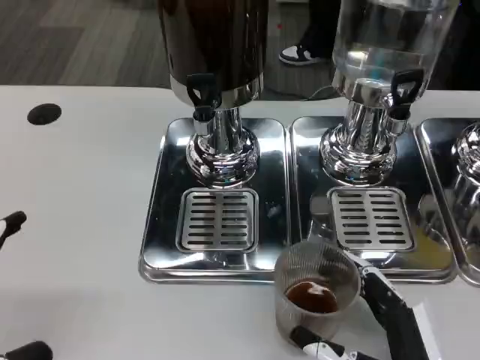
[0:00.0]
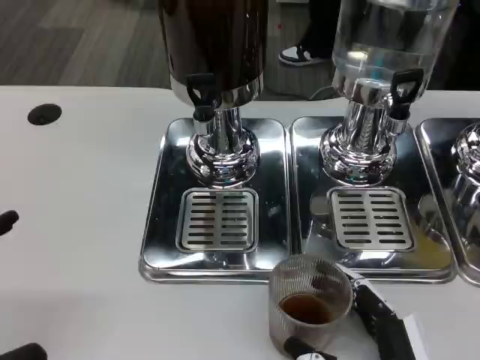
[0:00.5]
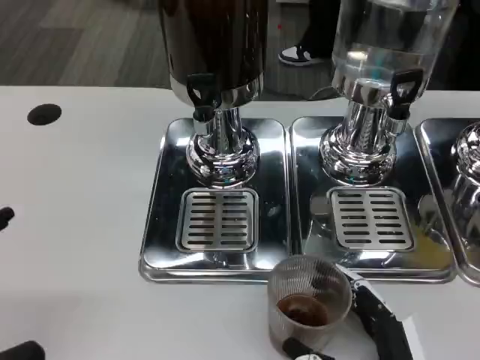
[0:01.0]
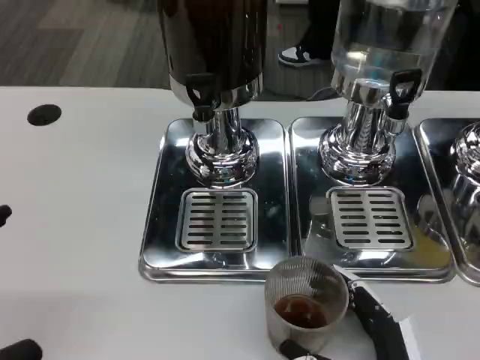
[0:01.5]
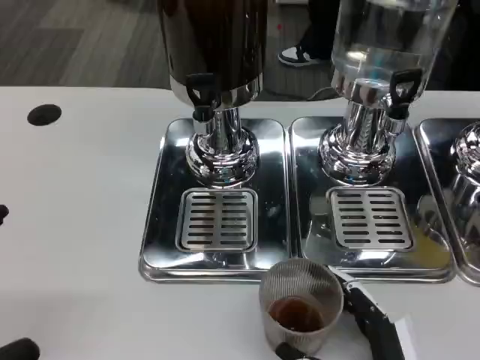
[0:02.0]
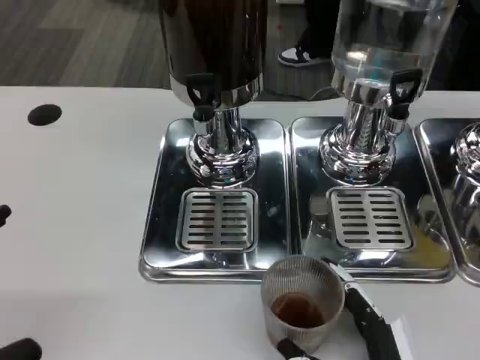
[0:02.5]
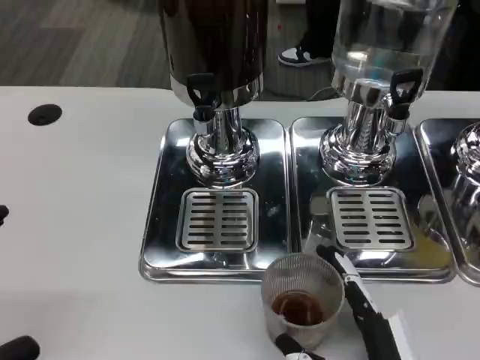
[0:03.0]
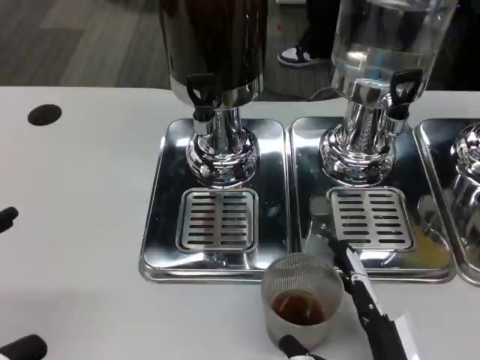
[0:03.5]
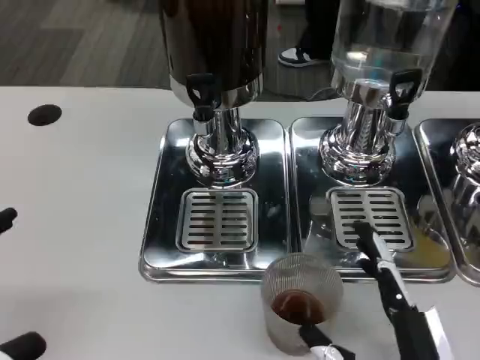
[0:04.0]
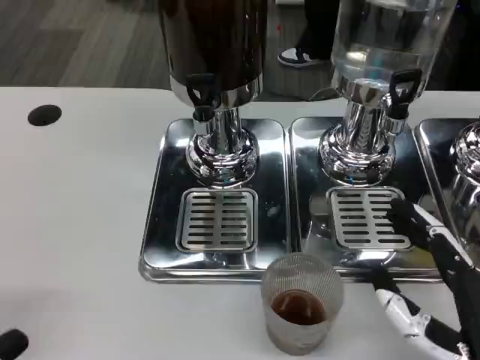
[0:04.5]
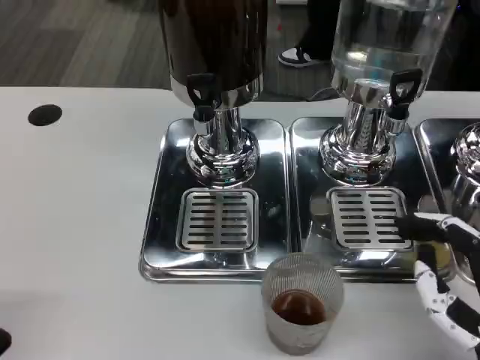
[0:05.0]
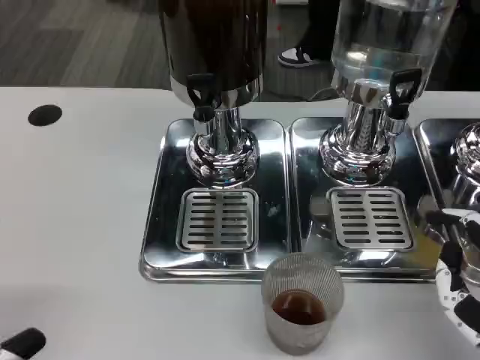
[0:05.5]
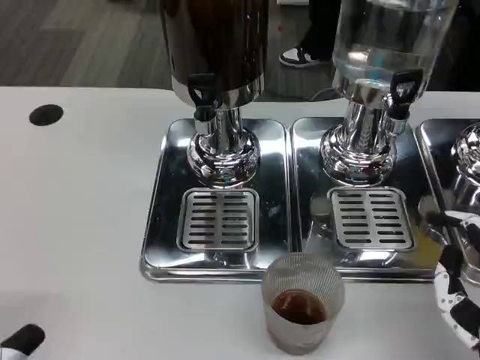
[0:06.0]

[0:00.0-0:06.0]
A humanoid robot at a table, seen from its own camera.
Task of the whole recording: Grasp the cup under the faucet to collect the drink, then remove the cup.
0:00.0 to 0:04.0: The hands make only small movements.
0:04.0 to 0:06.0: The right hand goes about 5 cm upward.

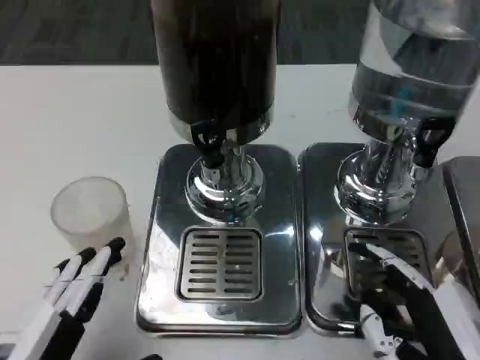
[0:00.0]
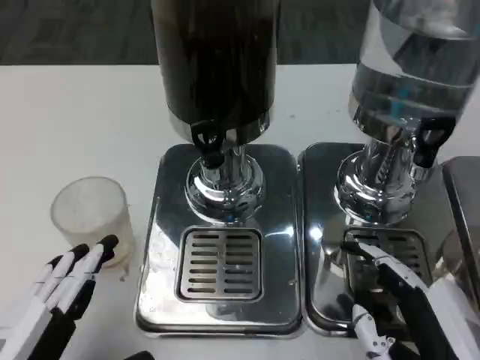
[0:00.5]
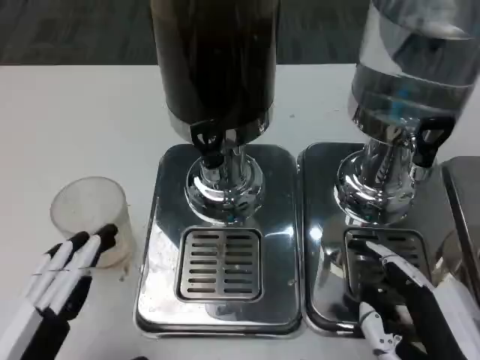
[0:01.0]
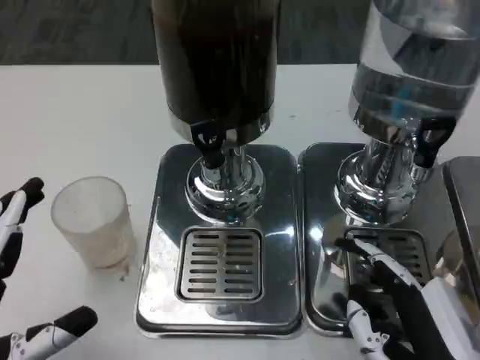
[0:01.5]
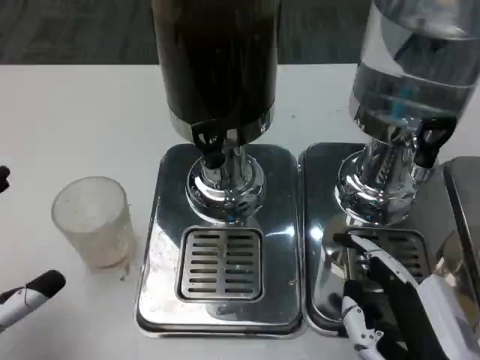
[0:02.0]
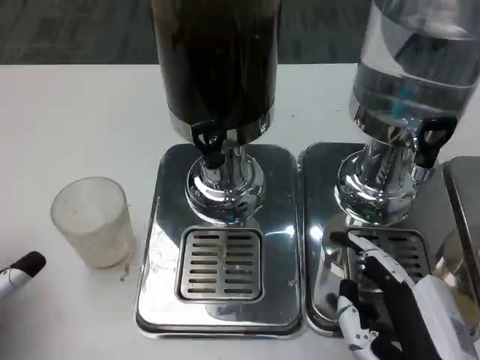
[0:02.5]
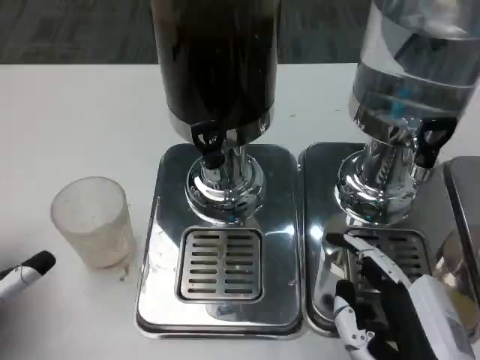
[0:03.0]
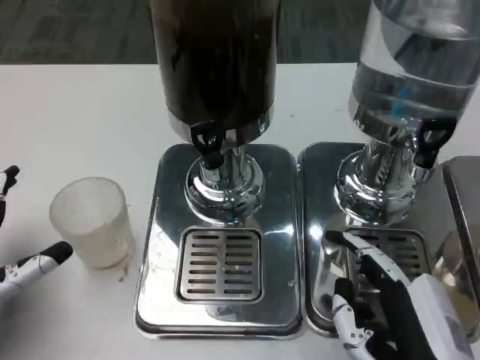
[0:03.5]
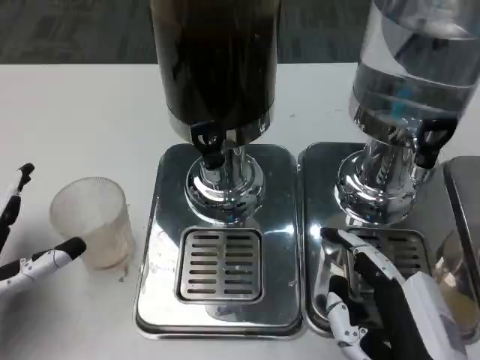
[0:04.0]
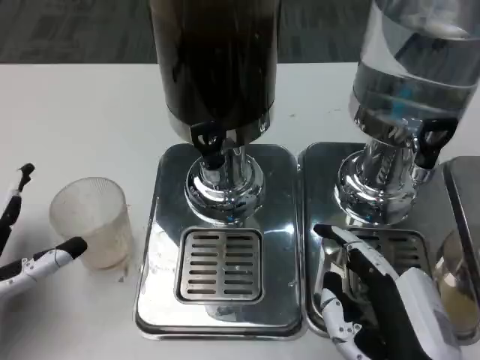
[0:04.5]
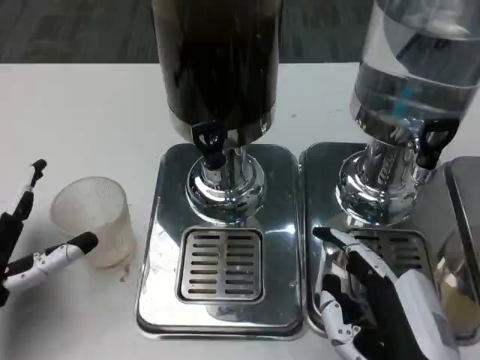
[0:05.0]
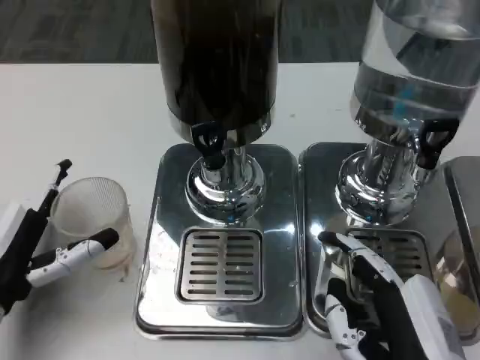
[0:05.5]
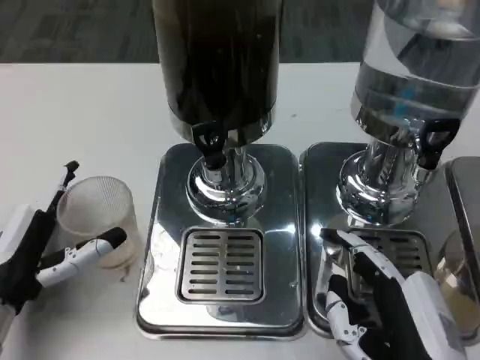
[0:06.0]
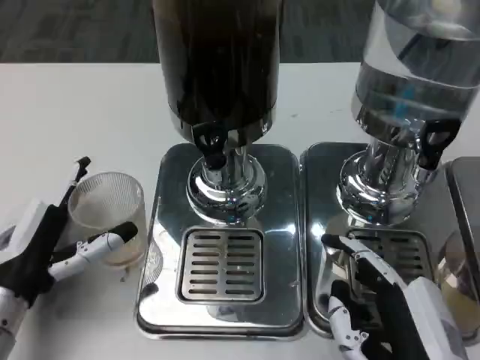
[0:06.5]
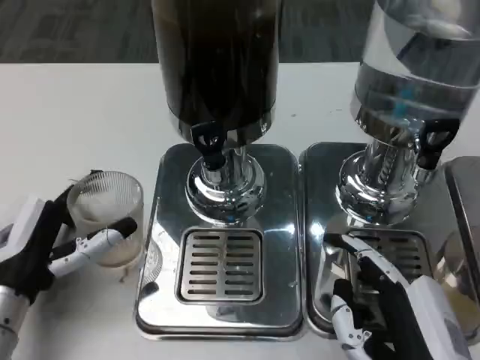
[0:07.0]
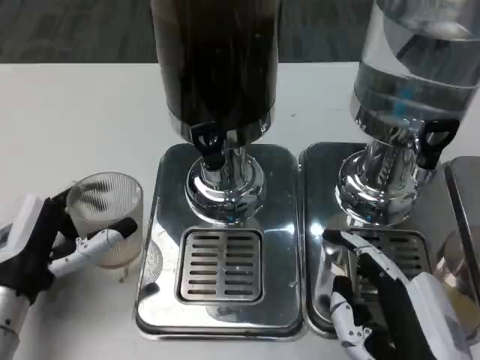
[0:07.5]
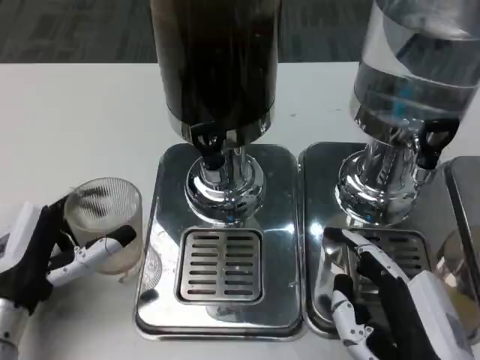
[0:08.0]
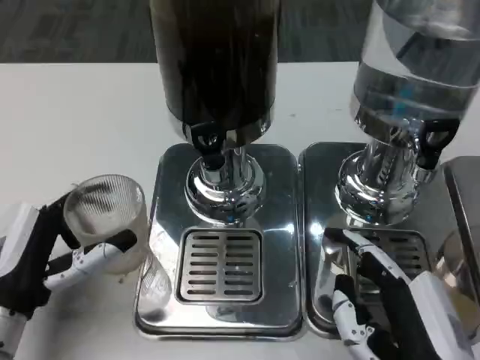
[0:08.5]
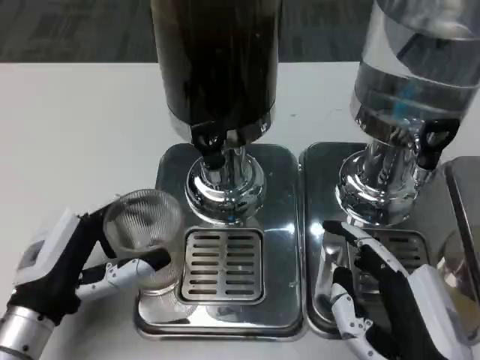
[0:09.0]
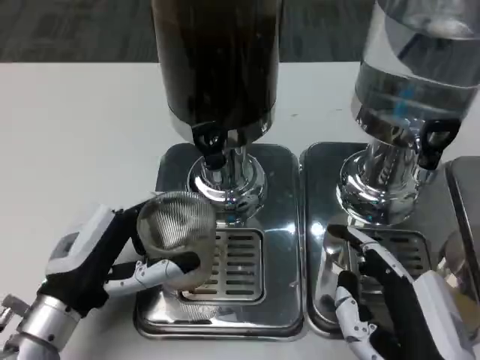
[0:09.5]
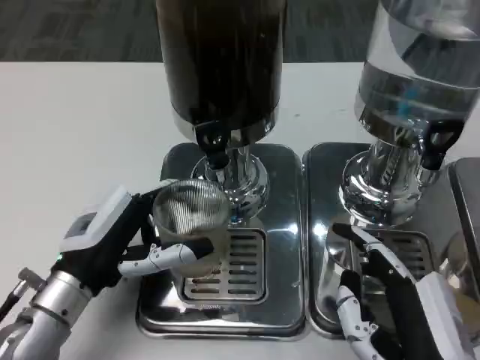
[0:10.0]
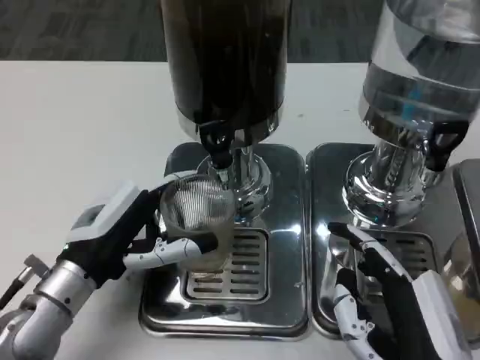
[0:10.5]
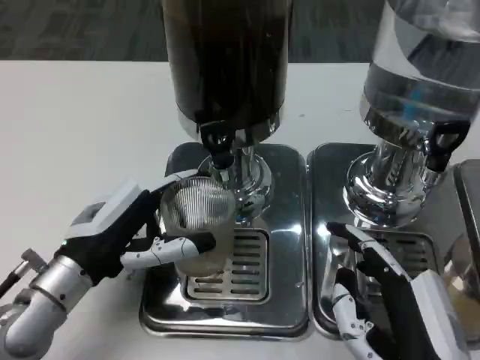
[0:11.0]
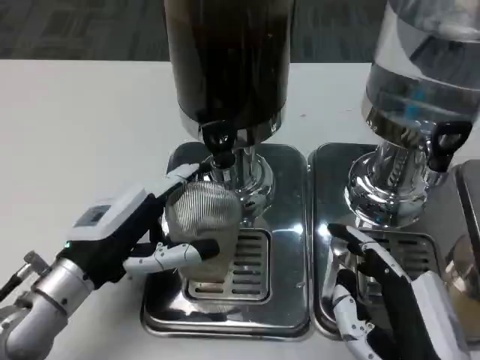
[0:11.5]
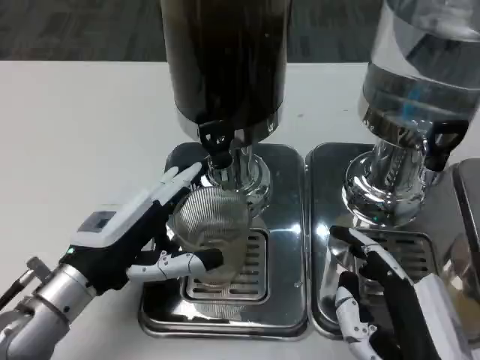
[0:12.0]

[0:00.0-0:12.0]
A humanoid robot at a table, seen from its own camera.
Task of the whole recording: Grasp the cup under the faucet to collect the drink, then remove the cup.
0:00.0 to 0:02.0: The left hand travels to the left by some 5 cm.
0:02.0 to 0:04.0: The left hand travels forward by some 5 cm.
0:04.0 to 0:08.0: The hands move only a little.
0:08.0 to 0:10.0: The left hand shifts by roughly 5 cm.

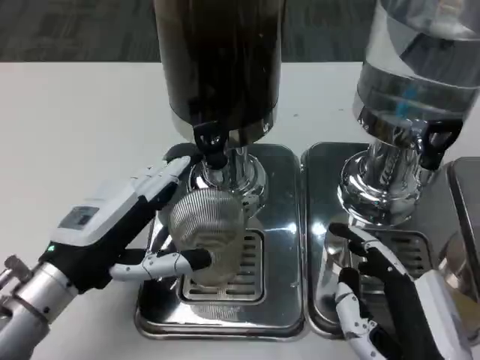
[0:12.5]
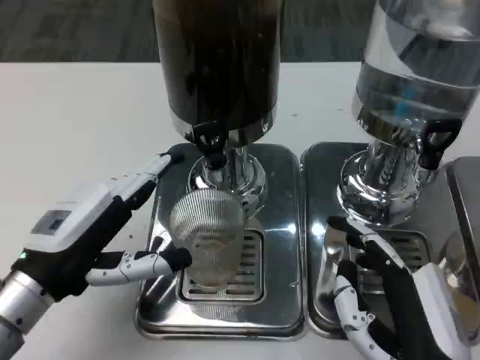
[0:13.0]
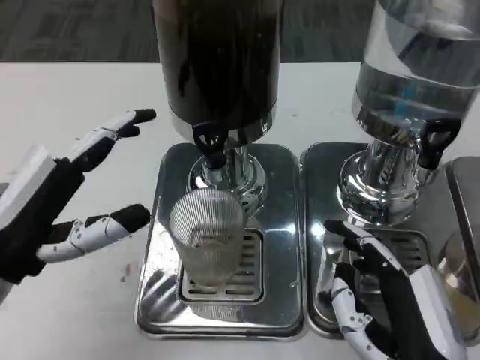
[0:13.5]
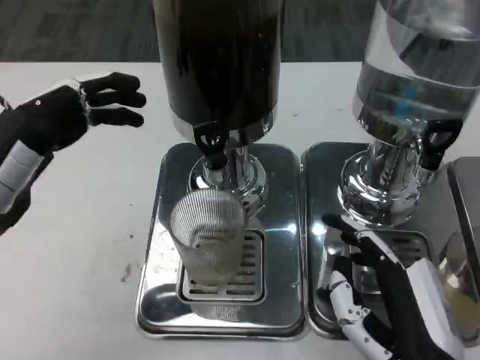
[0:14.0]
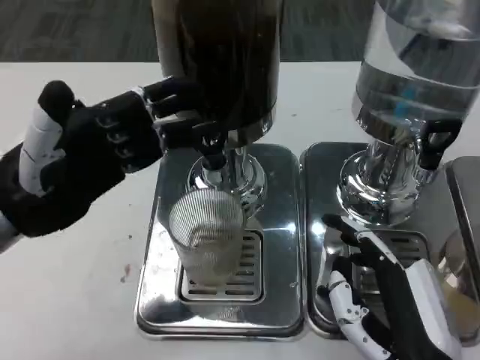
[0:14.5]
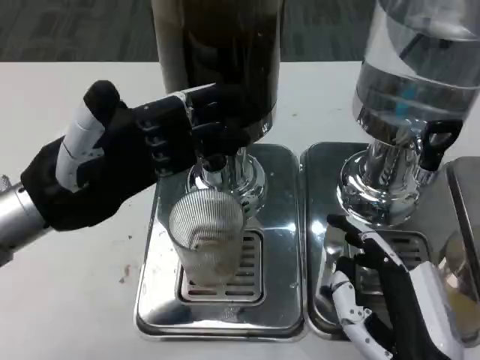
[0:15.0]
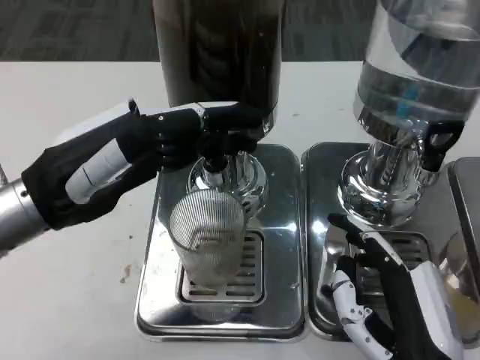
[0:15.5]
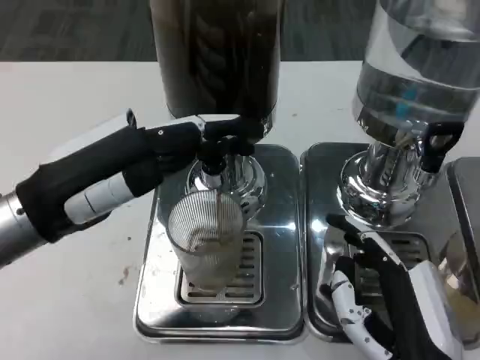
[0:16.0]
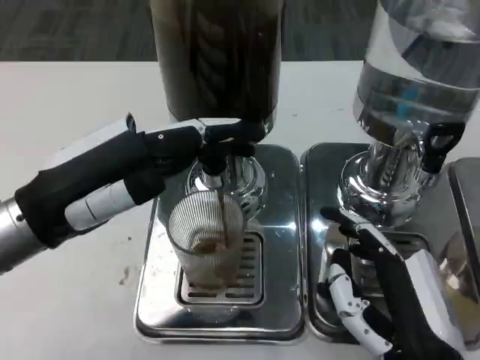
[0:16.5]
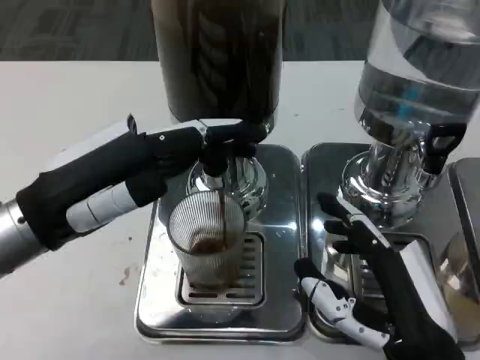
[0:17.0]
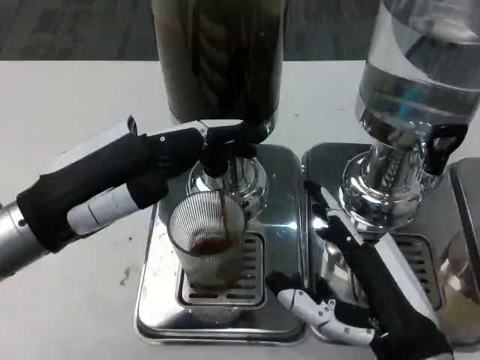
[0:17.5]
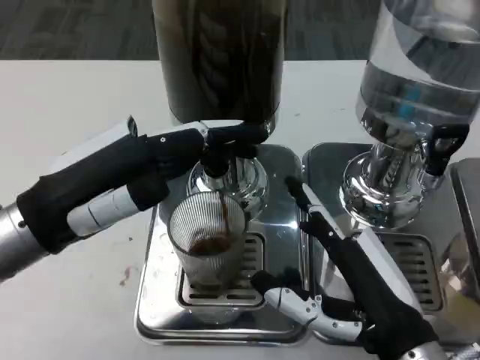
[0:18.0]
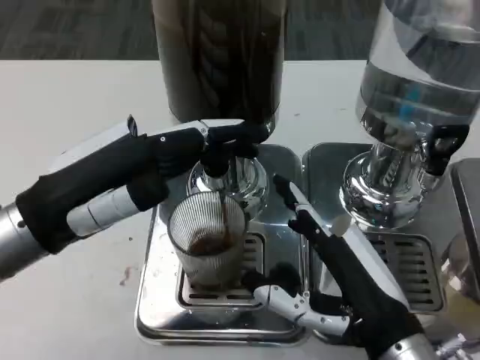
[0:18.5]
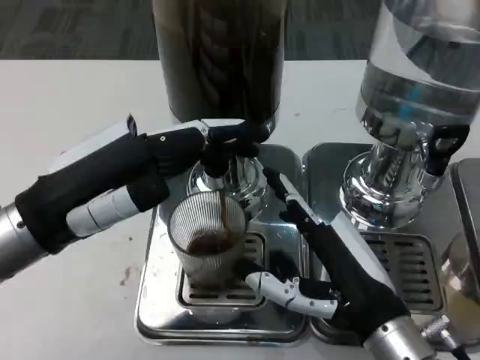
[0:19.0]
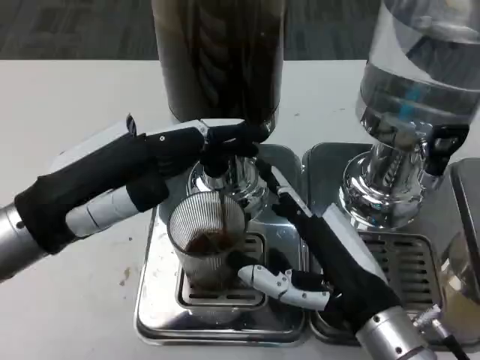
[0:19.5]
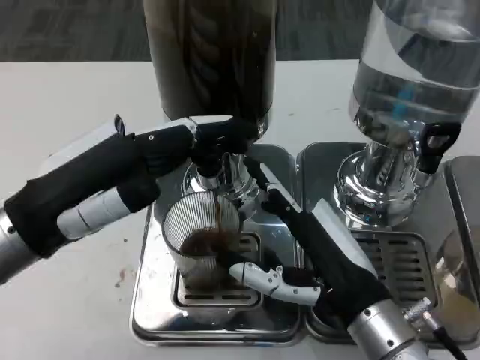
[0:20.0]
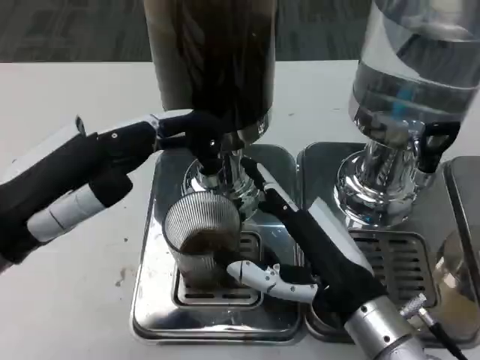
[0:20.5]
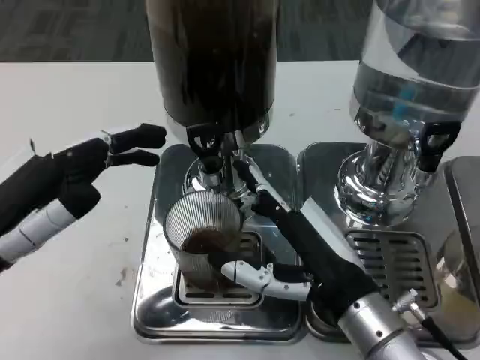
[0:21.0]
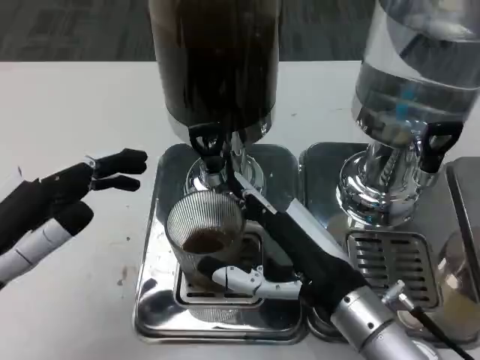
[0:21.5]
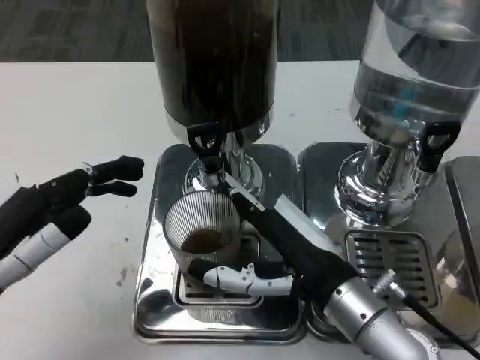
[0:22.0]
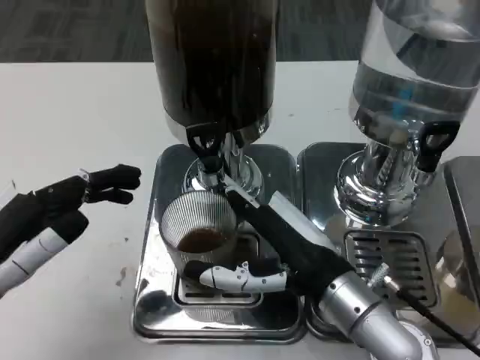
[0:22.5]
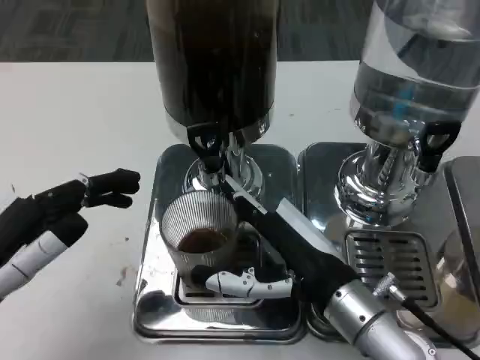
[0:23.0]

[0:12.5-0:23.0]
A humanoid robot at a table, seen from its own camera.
Task of the whole recording: Grasp the cup under the faucet to collect the drink, then remove the cup.
0:12.5 to 0:14.5: The left hand heads upward, covering approximately 10 cm.
0:16.5 to 0:19.0: The right hand moves forward, about 5 cm.
0:19.0 to 0:21.0: The left hand moves approximately 5 cm.
0:21.0 to 0:23.0: The hands stay close to where they were, moving slightly.
